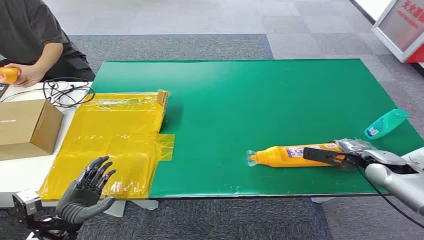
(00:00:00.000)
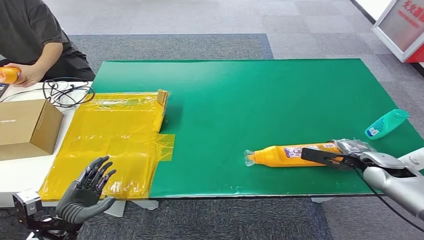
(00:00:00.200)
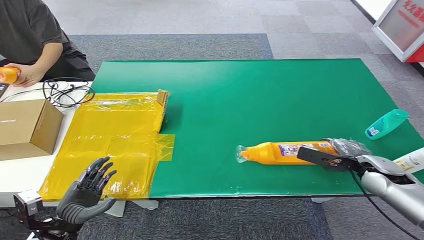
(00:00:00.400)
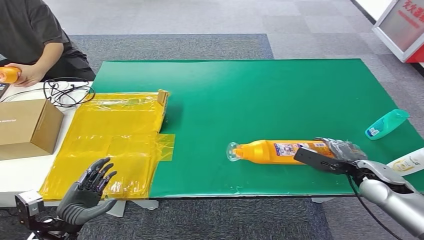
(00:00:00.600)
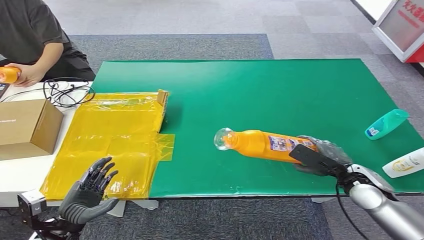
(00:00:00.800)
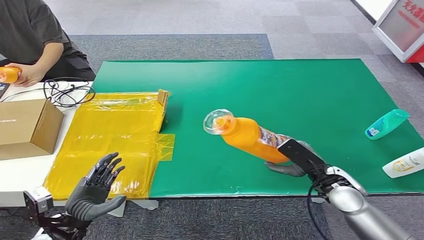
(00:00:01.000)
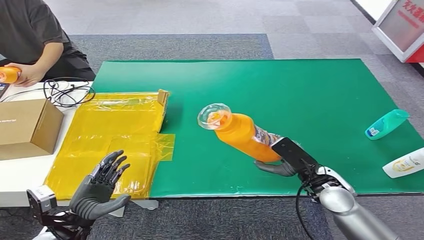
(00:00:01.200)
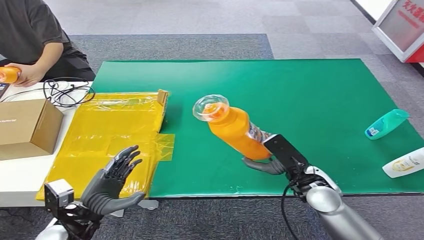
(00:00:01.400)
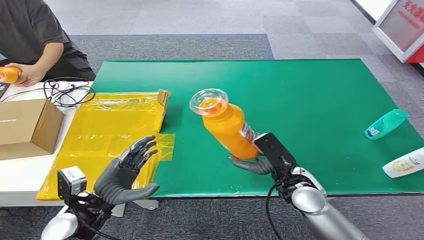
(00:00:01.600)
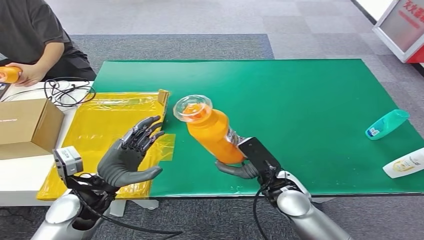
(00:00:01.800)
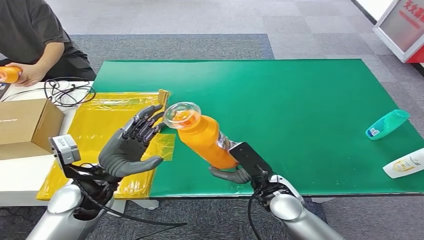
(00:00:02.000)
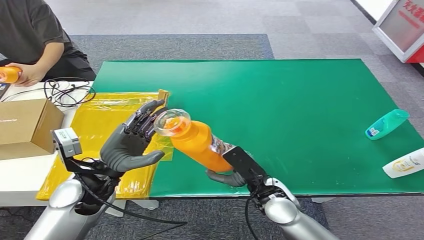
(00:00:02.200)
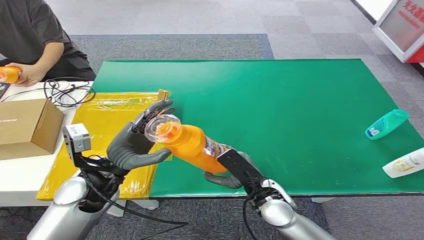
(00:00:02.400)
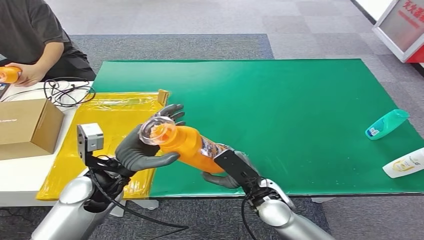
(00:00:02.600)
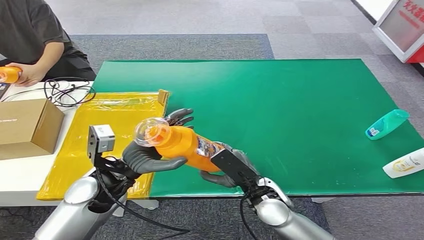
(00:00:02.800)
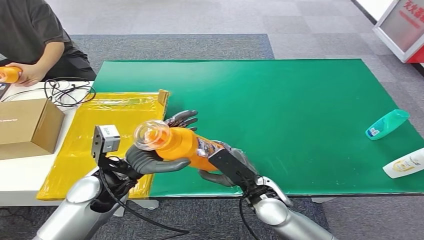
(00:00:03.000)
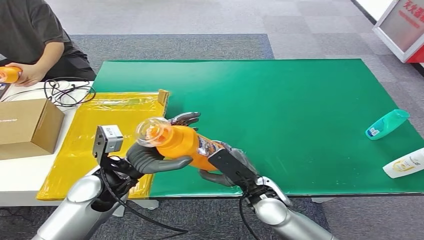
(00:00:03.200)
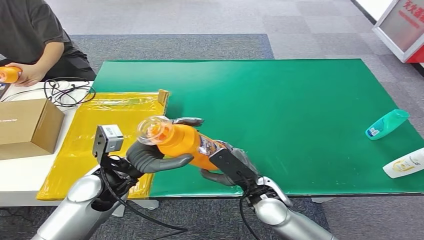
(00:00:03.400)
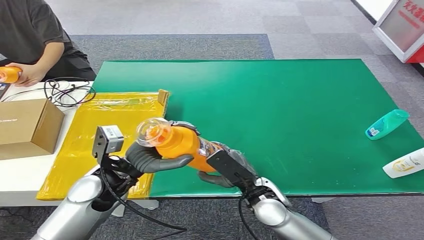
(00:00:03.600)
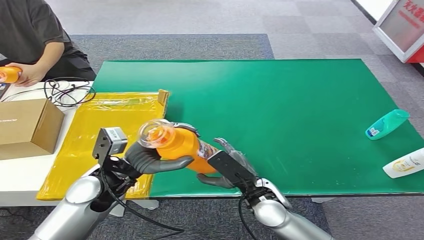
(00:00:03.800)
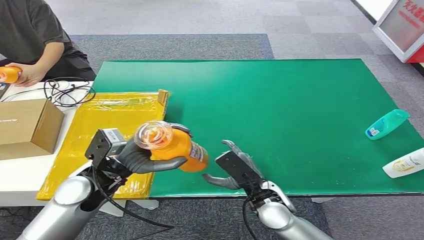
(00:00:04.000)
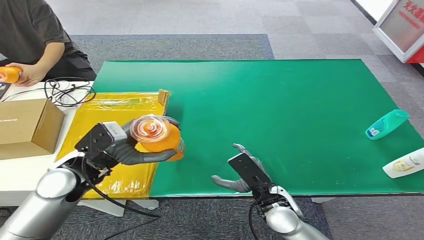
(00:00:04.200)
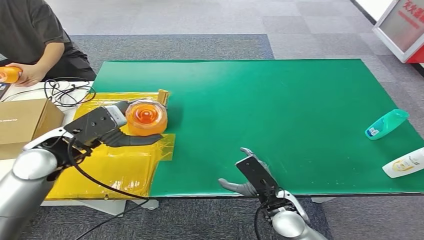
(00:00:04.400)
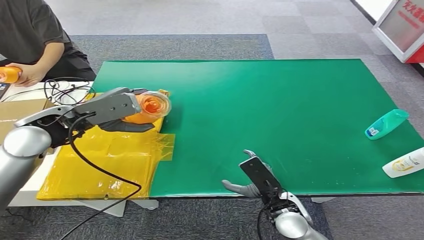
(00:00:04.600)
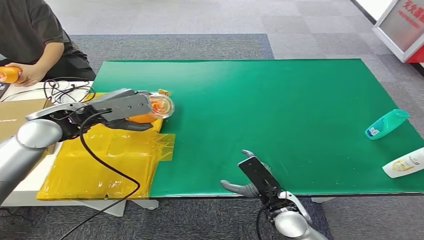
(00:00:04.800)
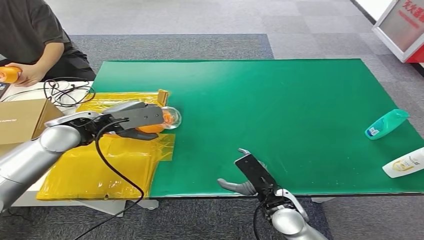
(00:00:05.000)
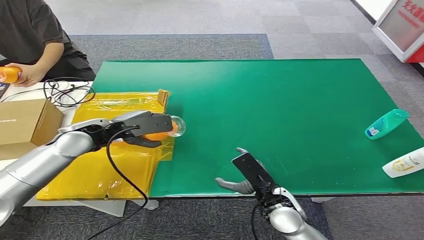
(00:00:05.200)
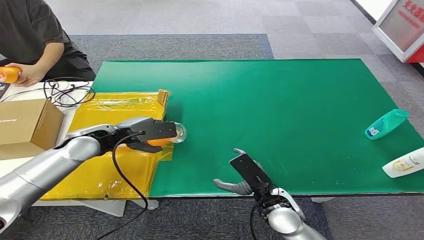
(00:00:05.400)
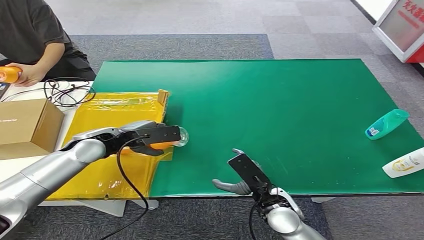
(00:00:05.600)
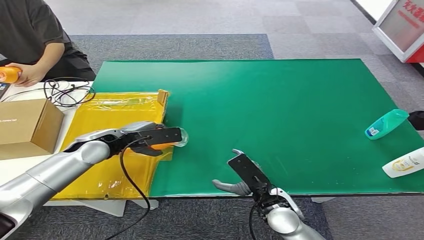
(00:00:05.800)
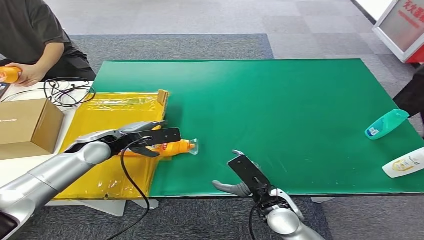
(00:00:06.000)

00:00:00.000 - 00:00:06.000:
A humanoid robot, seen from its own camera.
Step, 00:00:00.000 - 00:00:01.000: Pick up the bottle from the table.
Step, 00:00:01.200 - 00:00:06.000: Turn the bottle to the front side.
00:00:01.600 - 00:00:03.000: The left hand is displaced forward, upward and to the right by roughly 10 cm. Meanwhile the right hand travels to the left by approximately 10 cm.
00:00:03.000 - 00:00:04.400: The left hand travels upward, to the left and forward by some 15 cm; the right hand shifts by roughly 5 cm.
00:00:04.400 - 00:00:06.000: The left hand is displaced downward by about 10 cm.

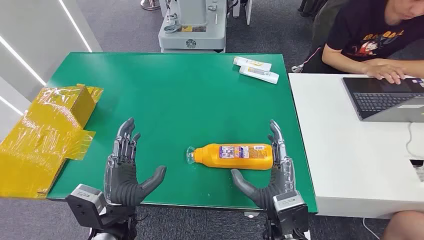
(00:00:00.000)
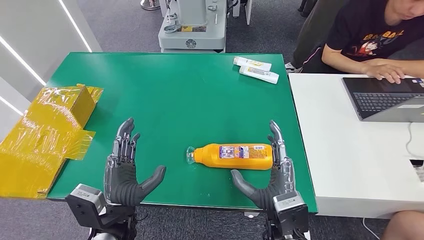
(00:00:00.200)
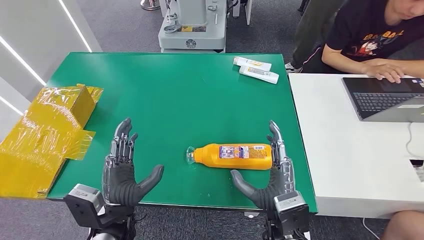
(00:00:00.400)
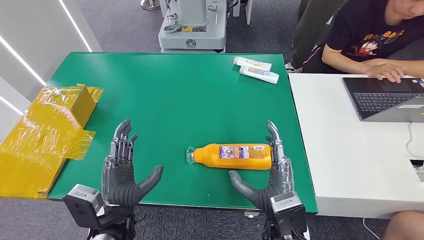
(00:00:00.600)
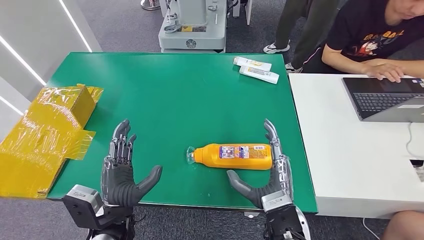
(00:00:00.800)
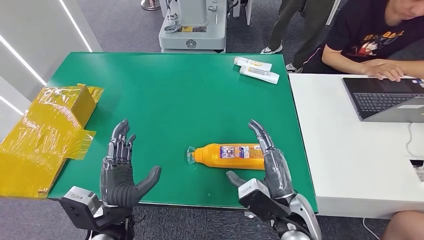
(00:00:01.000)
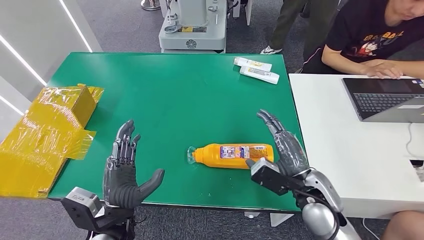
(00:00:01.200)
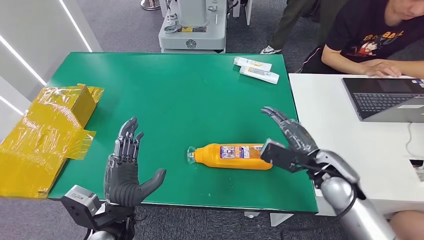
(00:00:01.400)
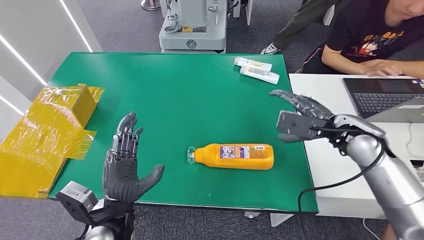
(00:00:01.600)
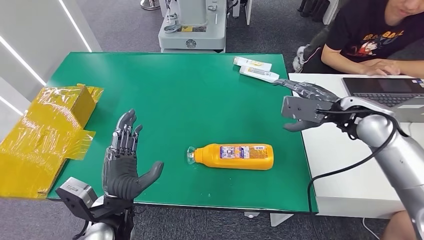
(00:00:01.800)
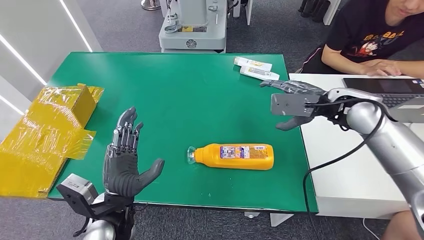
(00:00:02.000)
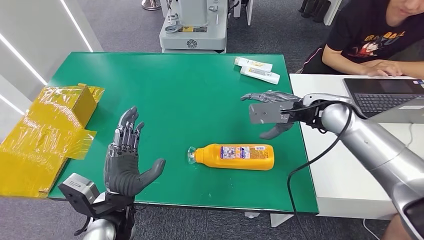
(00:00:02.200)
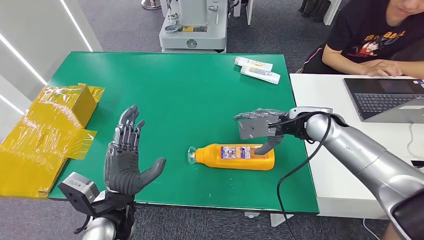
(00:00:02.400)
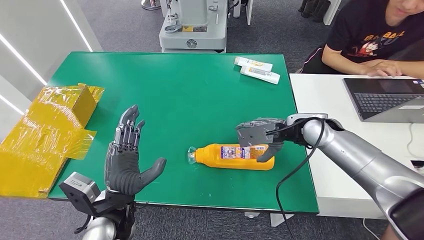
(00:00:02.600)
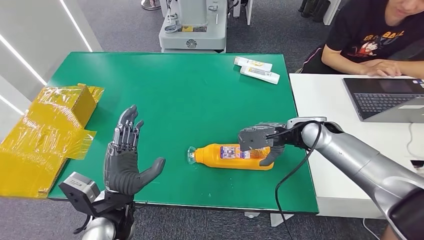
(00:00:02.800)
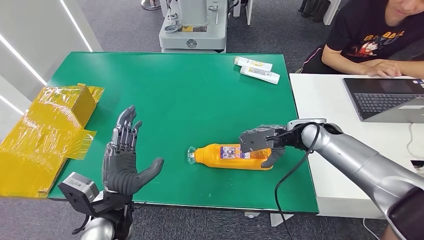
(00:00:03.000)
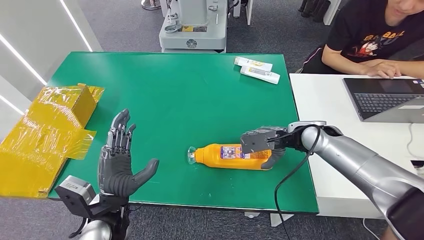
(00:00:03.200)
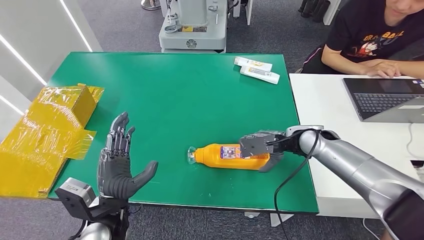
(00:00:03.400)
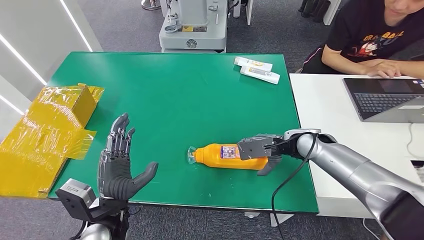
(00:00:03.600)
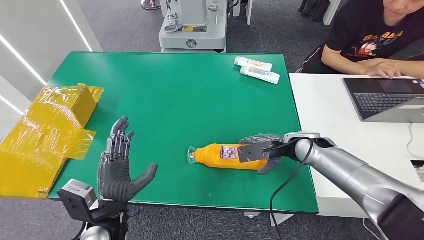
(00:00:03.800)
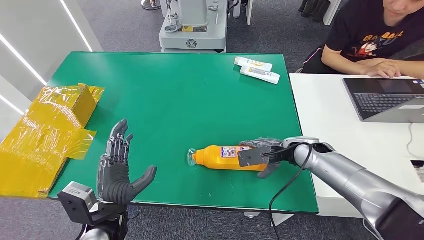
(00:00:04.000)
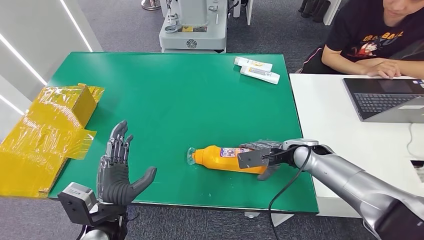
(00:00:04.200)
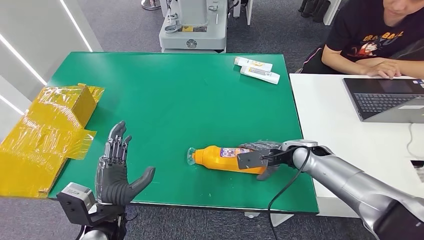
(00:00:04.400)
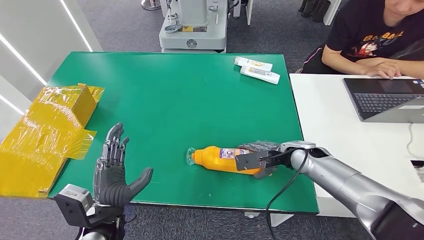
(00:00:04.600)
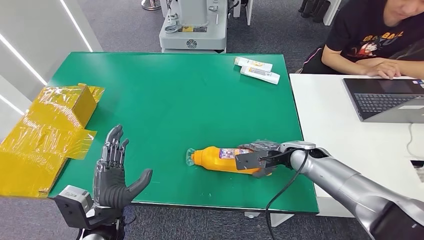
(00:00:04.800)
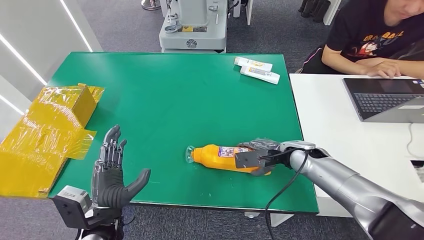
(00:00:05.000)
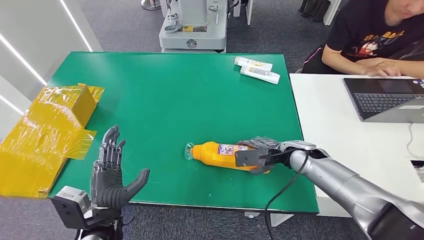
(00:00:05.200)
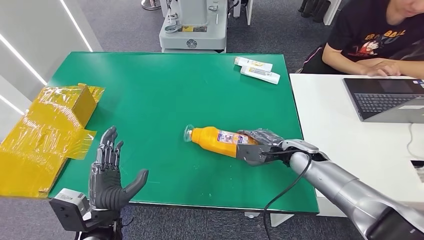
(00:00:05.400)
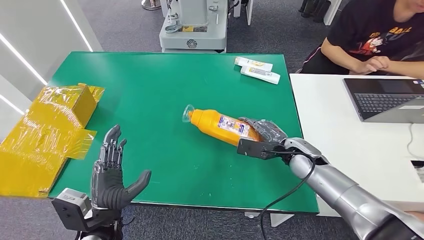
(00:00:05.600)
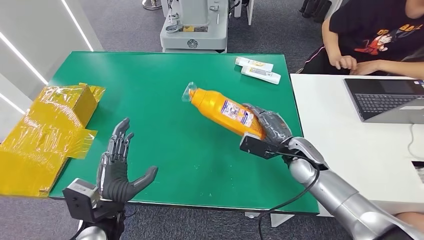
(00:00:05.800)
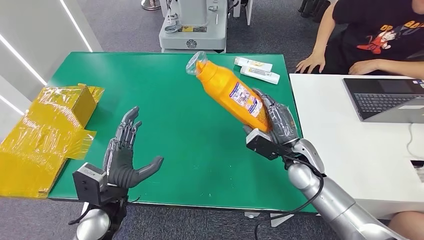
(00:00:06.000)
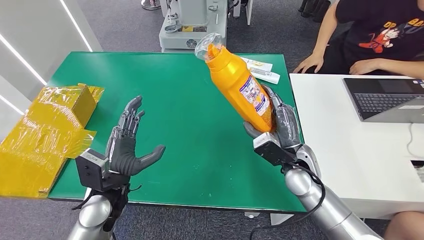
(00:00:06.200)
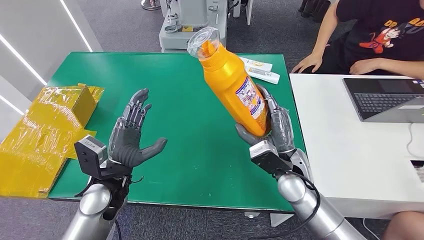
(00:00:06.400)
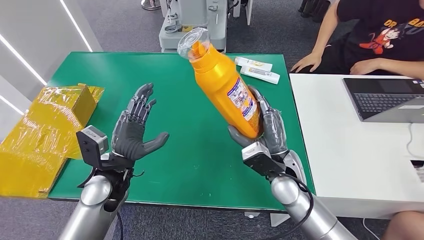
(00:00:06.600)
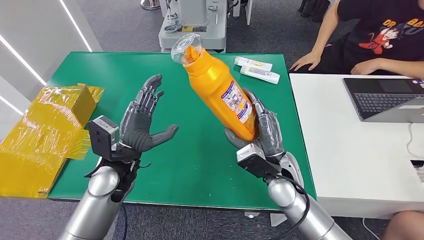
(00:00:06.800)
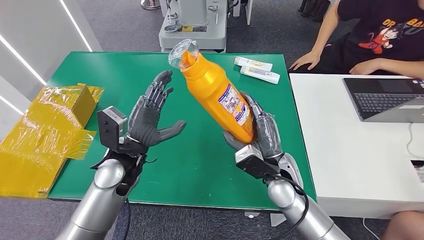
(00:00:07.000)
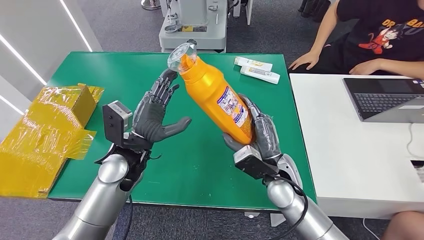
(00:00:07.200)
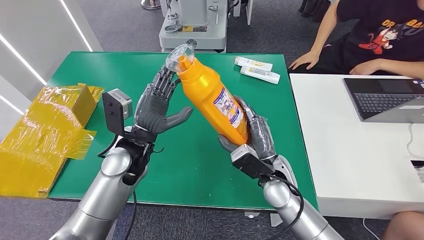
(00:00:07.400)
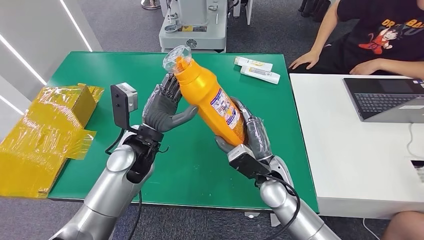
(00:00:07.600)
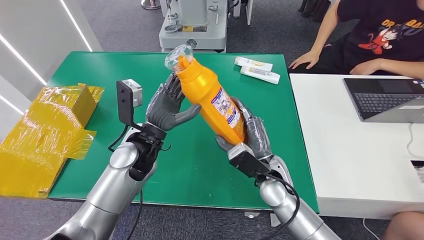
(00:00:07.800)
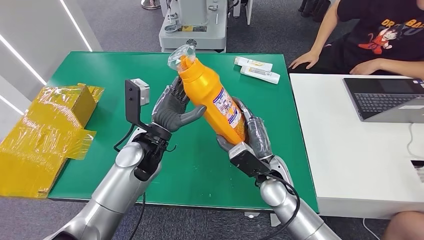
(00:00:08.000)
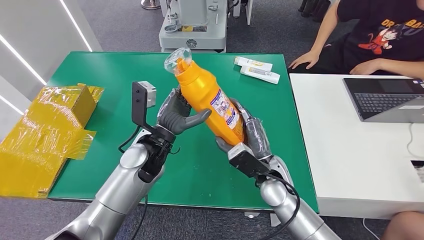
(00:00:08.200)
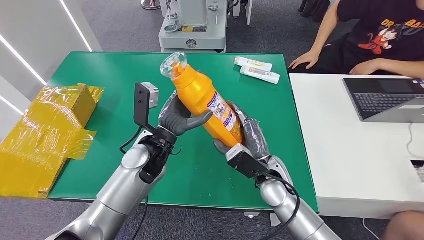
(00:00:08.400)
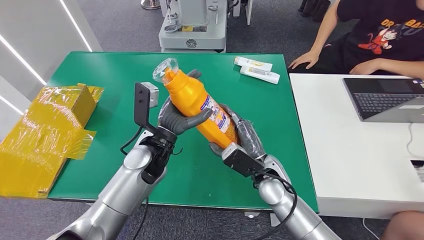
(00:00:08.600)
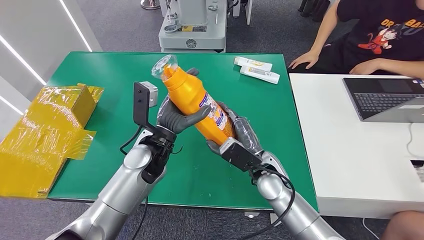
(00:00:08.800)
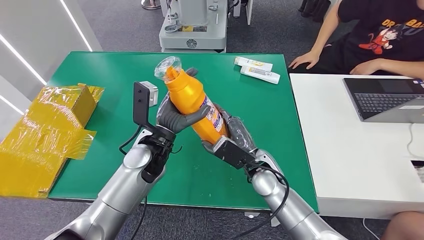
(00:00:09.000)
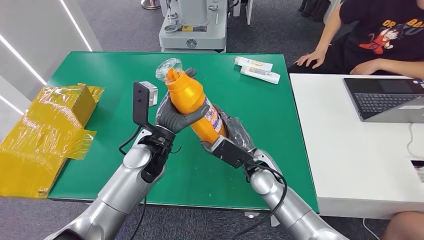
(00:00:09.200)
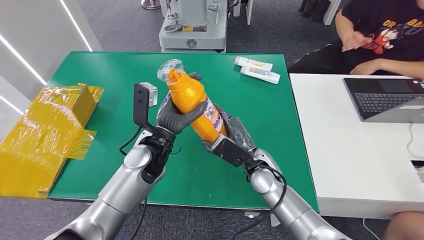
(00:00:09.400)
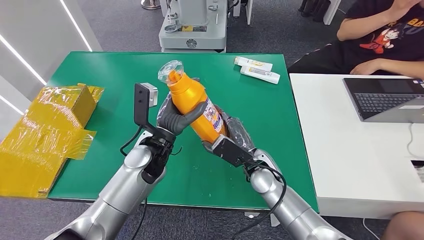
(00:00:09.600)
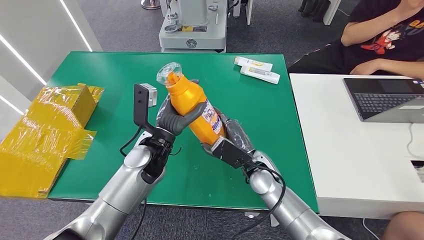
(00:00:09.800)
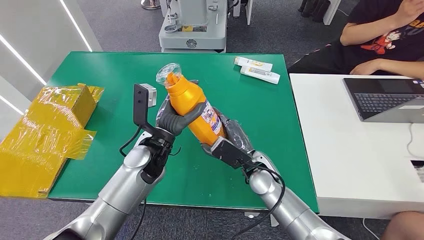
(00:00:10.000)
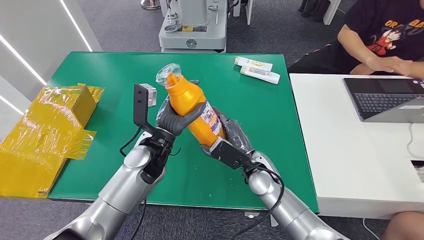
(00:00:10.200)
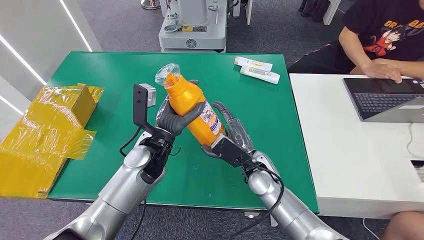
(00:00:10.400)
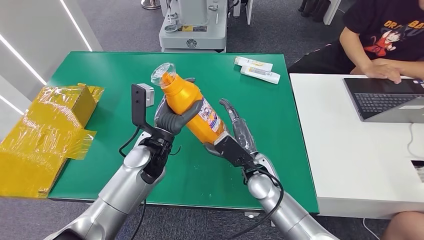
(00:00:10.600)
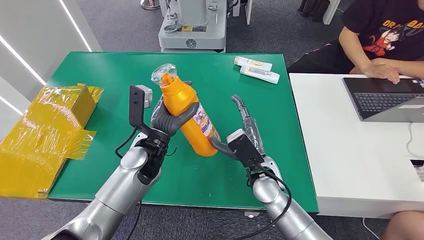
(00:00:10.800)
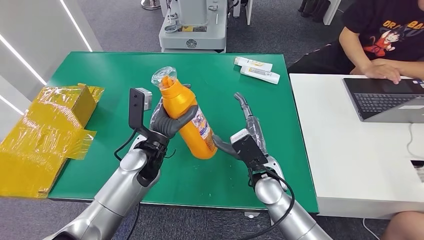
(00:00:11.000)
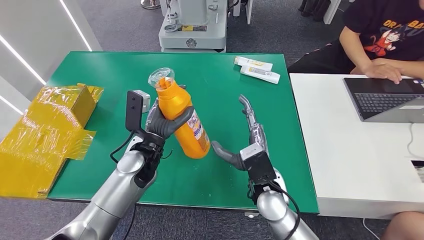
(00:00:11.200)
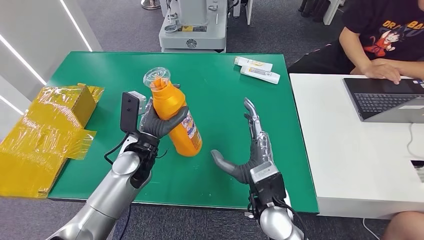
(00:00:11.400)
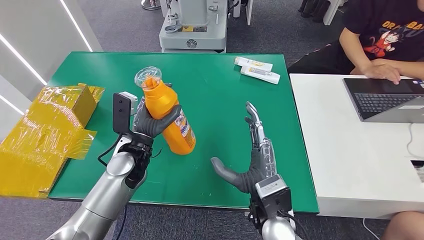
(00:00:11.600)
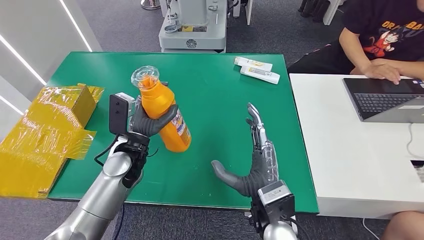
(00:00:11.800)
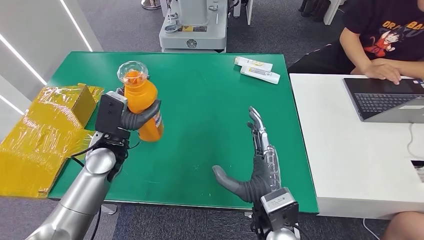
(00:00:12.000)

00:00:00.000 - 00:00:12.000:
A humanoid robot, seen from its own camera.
Step, 00:00:00.000 - 00:00:06.400: Pick up the bottle from the table.
00:00:01.600 - 00:00:03.000: The right hand heads to the left, covering about 5 cm.
00:00:03.000 - 00:00:04.400: The right hand goes some 5 cm downward.
00:00:07.600 - 00:00:10.400: There are only small adjustments of the hands.
00:00:10.400 - 00:00:12.000: The left hand moves to the left, approximately 10 cm. The right hand is displaced backward and upward by roughly 15 cm.
